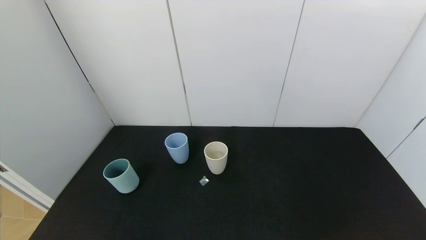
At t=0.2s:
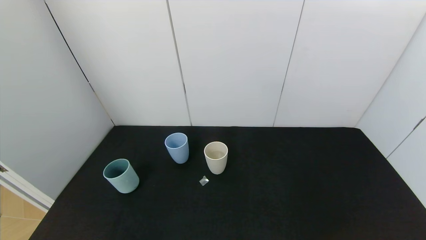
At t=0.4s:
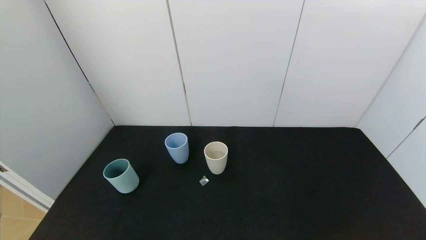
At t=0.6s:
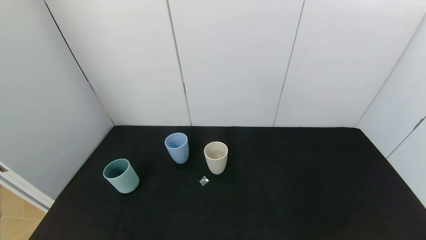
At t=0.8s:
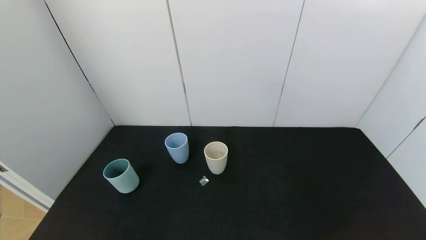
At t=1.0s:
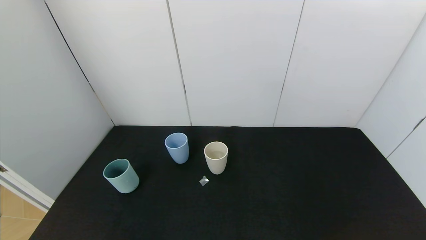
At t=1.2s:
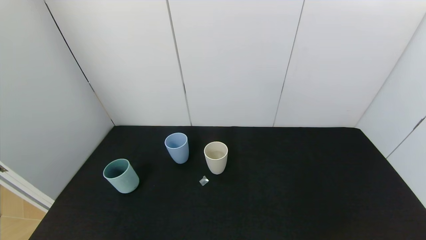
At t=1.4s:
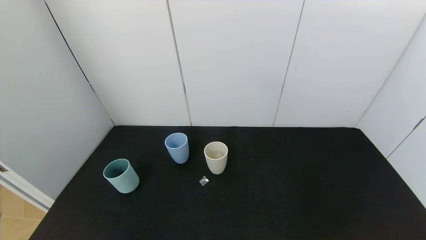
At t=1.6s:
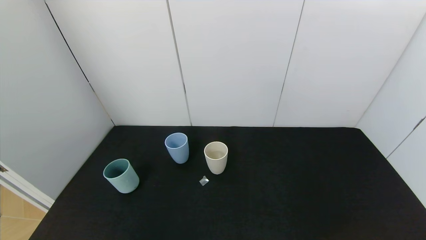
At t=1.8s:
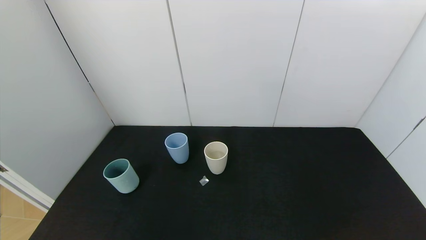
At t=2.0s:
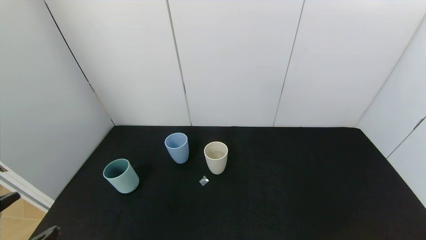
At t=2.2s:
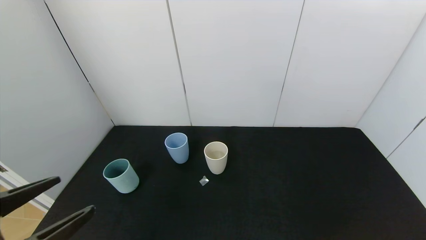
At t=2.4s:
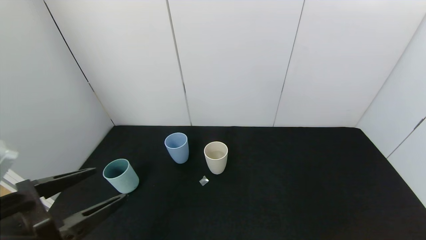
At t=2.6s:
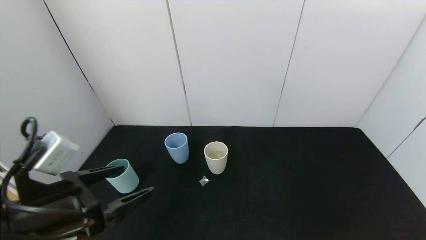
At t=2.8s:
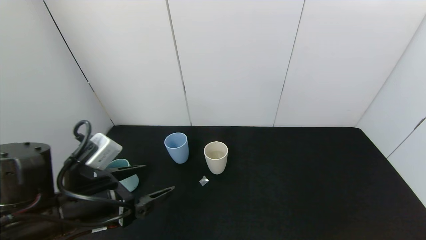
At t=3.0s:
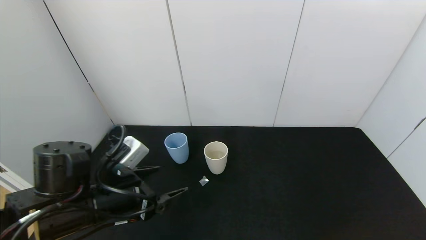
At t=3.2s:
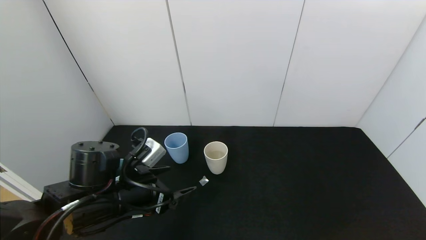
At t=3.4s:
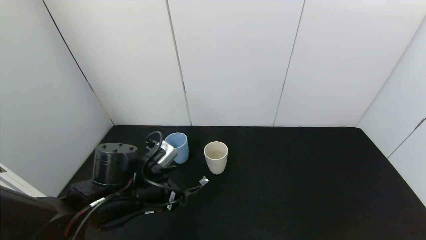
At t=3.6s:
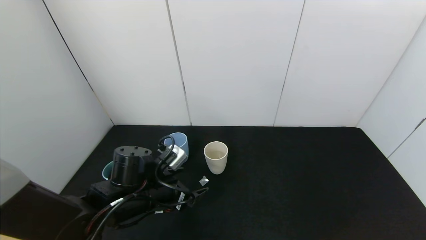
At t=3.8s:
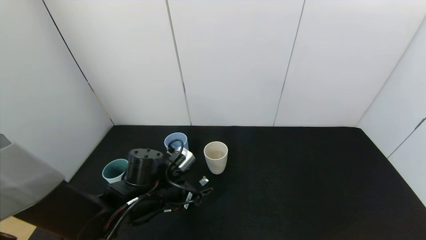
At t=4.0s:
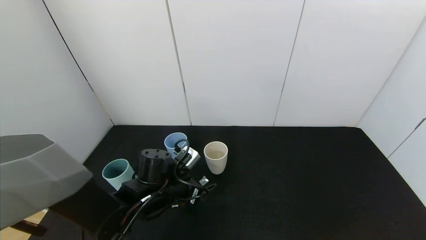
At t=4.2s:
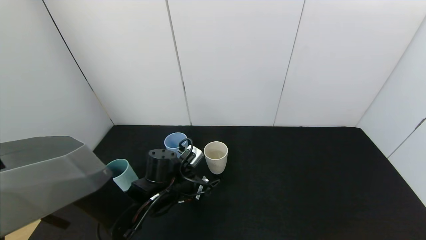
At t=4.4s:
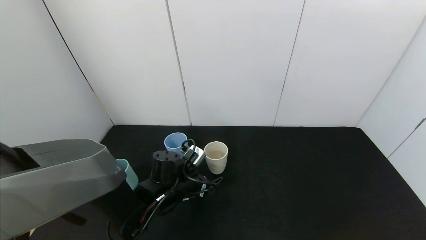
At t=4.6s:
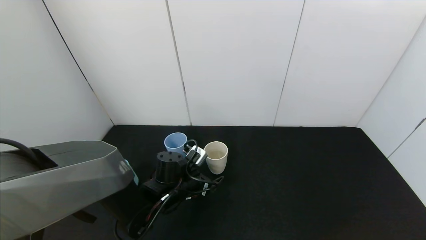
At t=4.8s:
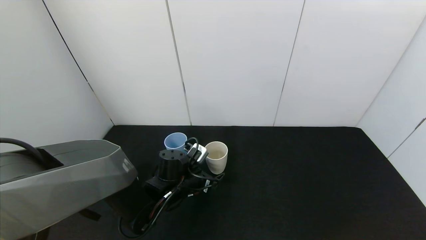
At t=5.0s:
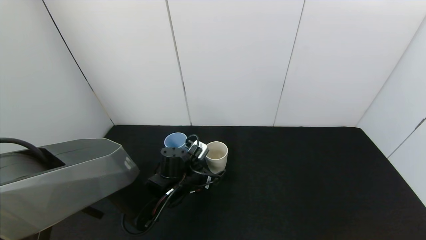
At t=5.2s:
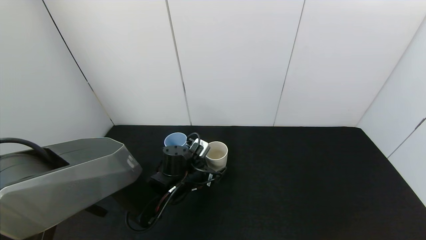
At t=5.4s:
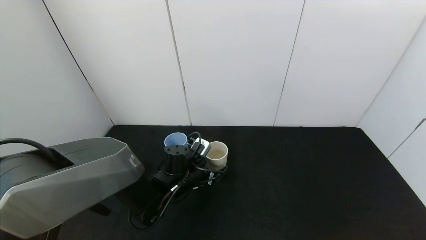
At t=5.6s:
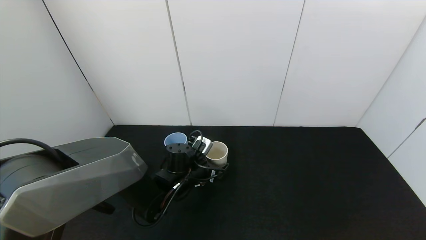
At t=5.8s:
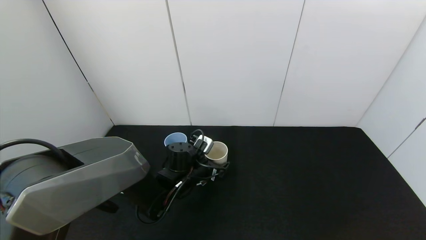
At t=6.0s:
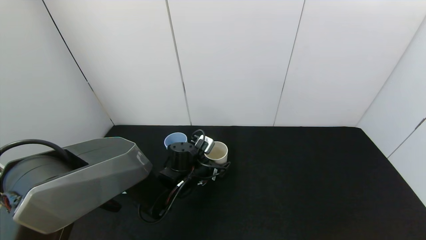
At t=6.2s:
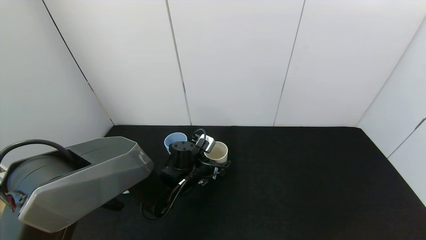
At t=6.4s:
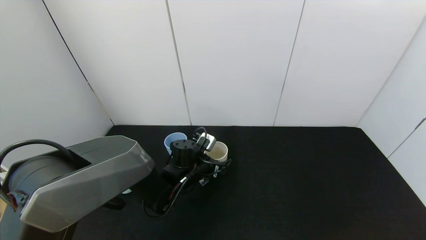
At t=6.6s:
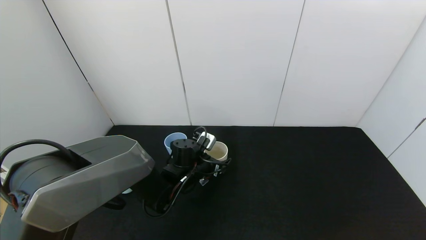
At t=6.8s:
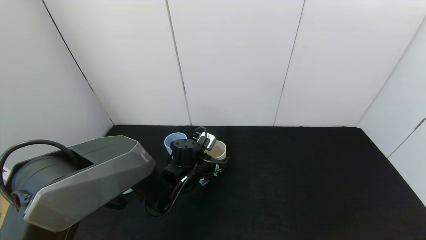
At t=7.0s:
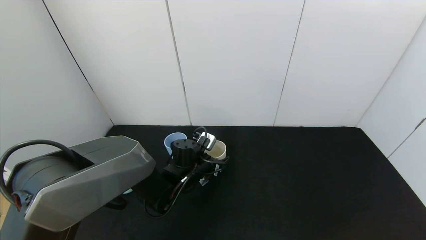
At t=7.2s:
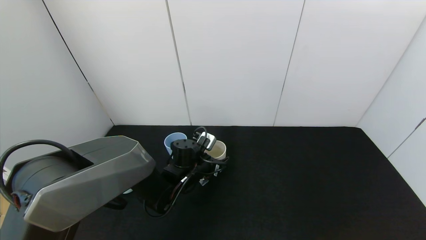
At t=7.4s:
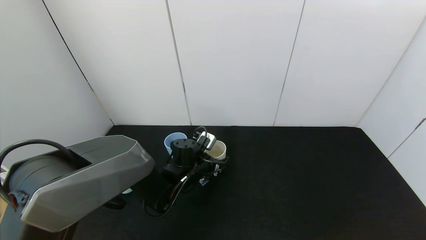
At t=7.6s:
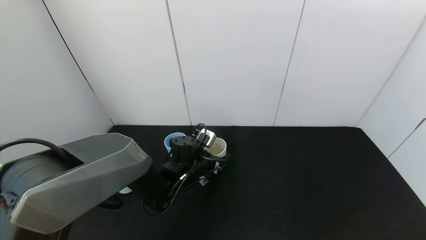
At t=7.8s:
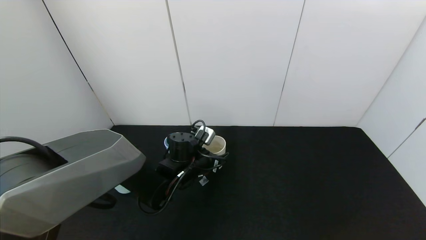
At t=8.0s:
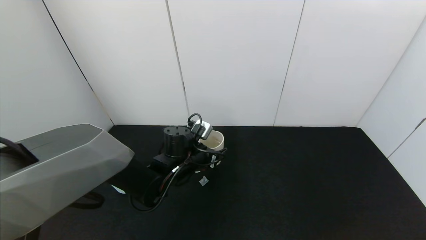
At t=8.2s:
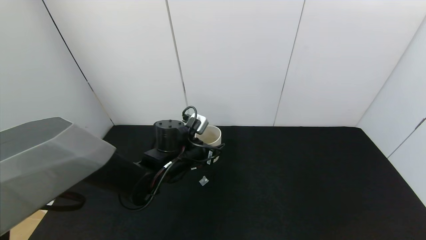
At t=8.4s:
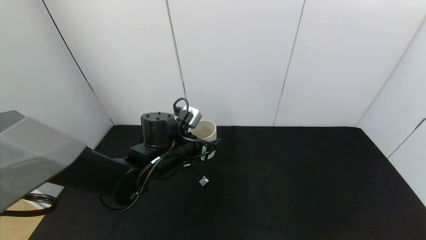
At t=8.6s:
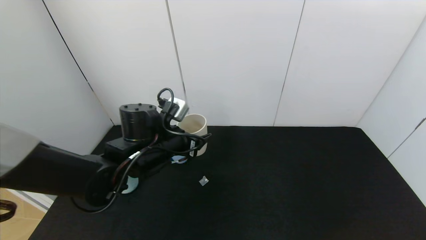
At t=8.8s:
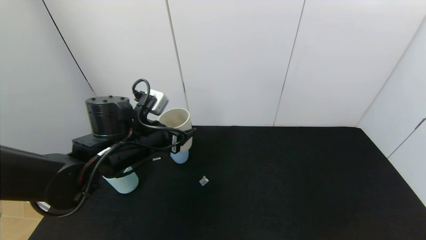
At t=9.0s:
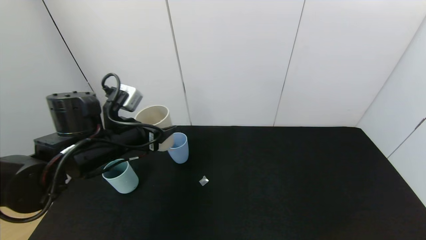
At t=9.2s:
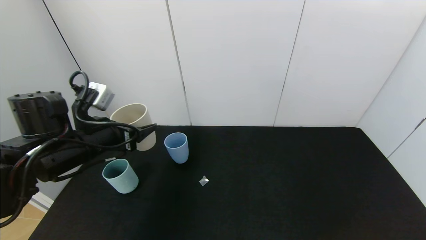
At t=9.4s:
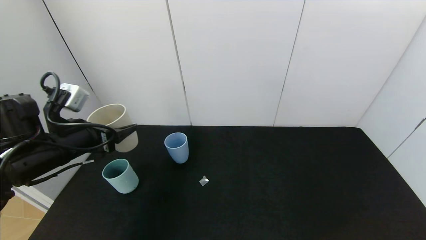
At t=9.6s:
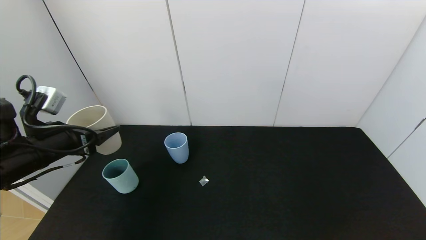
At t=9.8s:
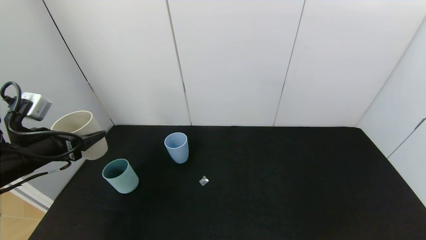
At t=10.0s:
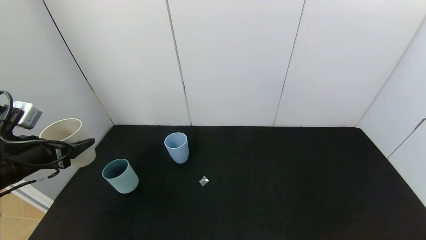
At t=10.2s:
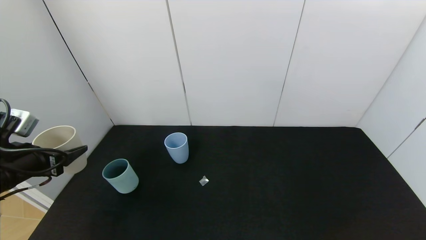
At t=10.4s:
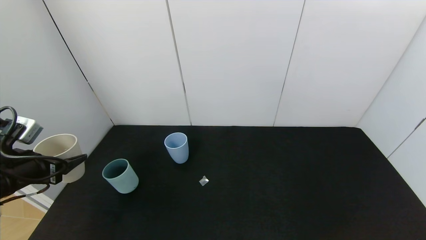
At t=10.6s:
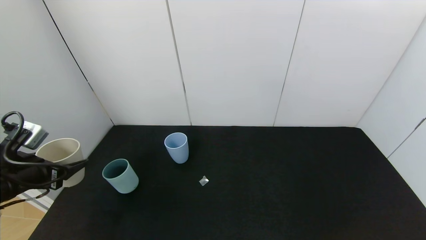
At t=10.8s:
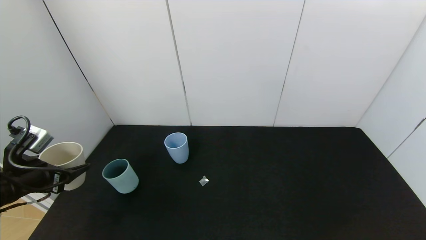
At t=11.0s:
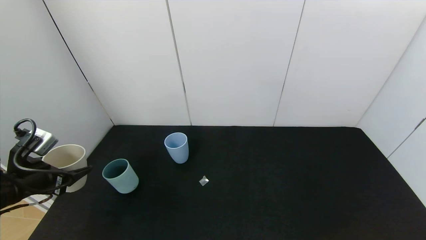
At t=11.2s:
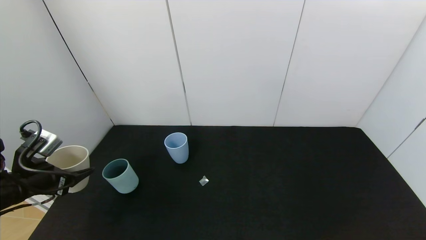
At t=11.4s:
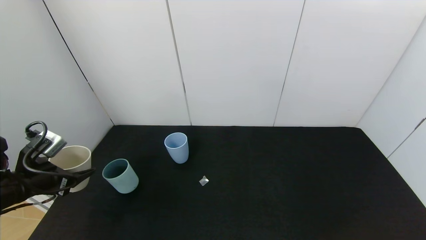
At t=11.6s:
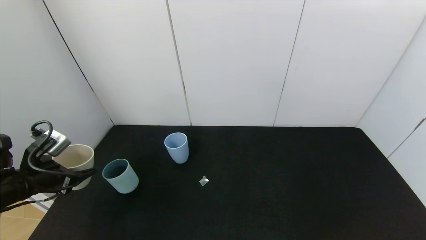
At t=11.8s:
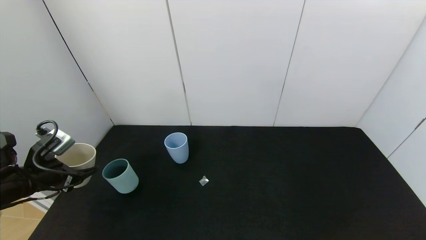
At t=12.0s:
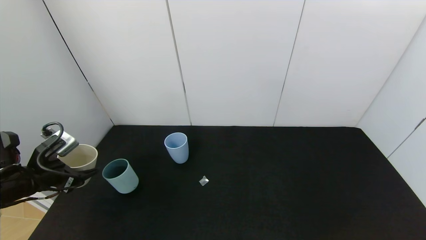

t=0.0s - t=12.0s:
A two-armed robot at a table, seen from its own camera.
Task of the whole recording: use the gripper to pour the water into the other two cups on black table.
Step, t=0.0s - t=6.8s: Grasp the white cup with the left gripper.
t=1.6s - t=3.0s: The left gripper goes approximately 25 cm forward.
t=3.0s - t=4.4s: The left gripper goes roughly 15 cm forward, downward and to the right.
t=4.4s - t=6.0s: The left gripper changes place by about 5 cm.
t=6.0s - t=7.6s: The left gripper closes.
t=7.6s - t=9.0s: The left gripper travels upward, to the left and backward by about 20 cm.
t=9.0s - t=10.4s: The left gripper shifts some 15 cm to the left.

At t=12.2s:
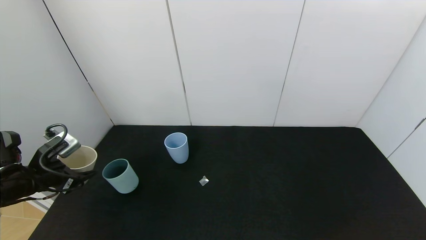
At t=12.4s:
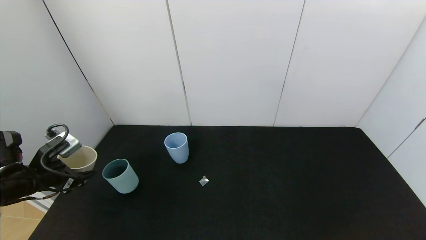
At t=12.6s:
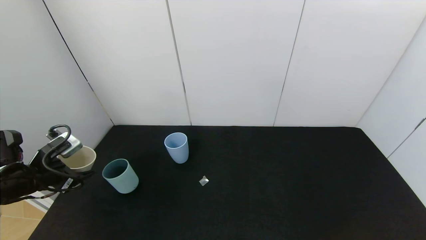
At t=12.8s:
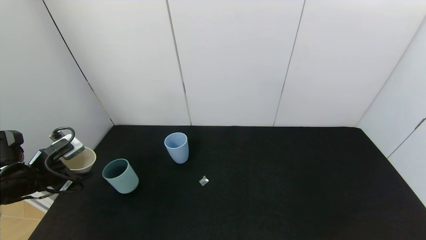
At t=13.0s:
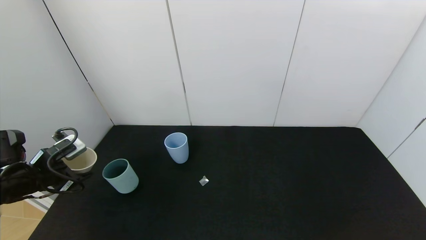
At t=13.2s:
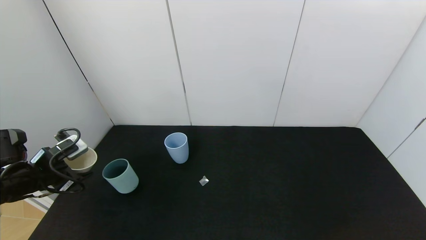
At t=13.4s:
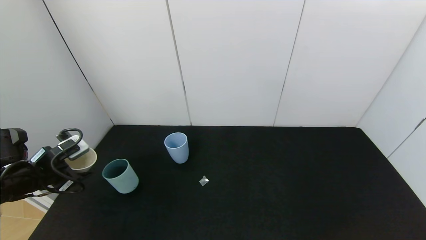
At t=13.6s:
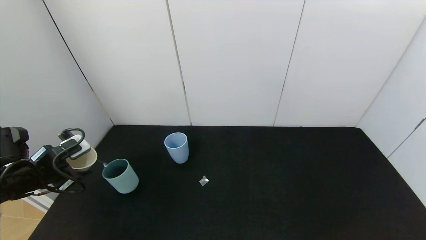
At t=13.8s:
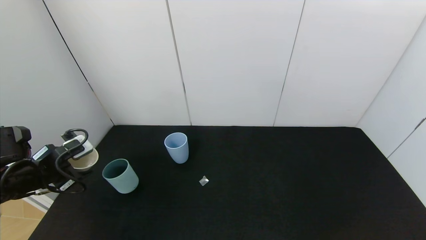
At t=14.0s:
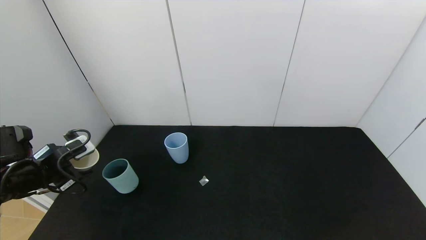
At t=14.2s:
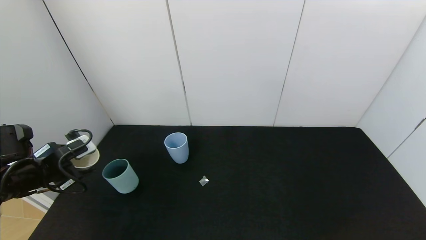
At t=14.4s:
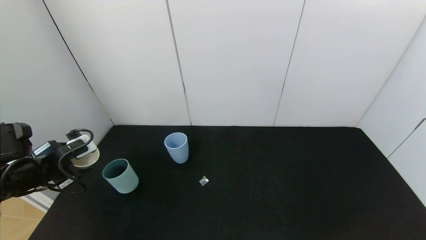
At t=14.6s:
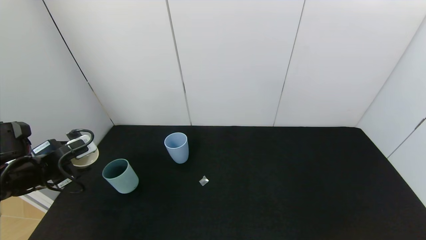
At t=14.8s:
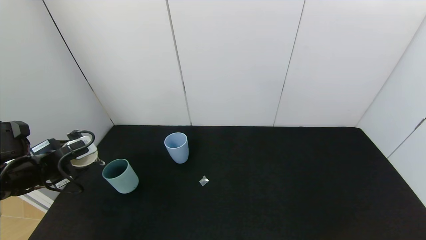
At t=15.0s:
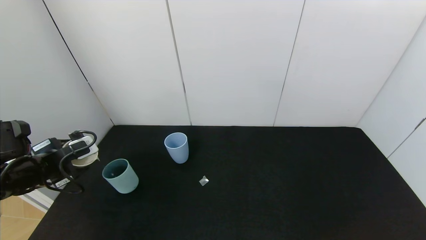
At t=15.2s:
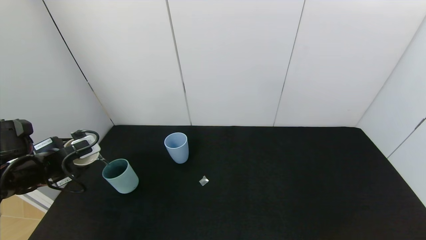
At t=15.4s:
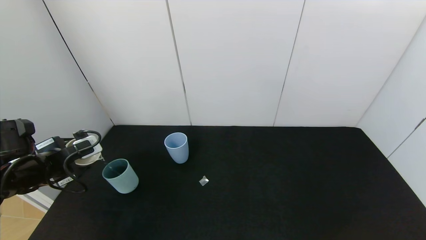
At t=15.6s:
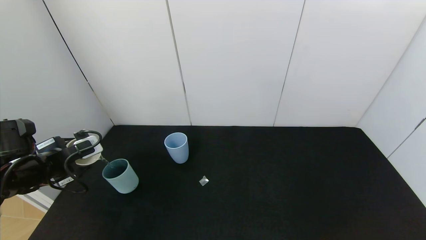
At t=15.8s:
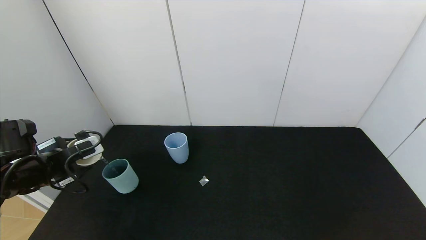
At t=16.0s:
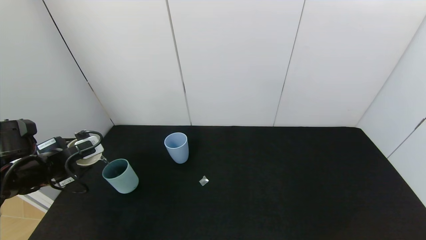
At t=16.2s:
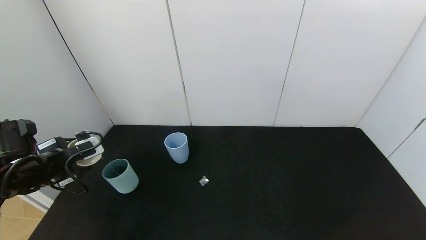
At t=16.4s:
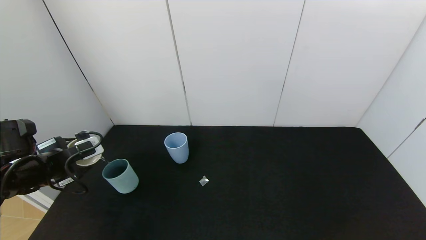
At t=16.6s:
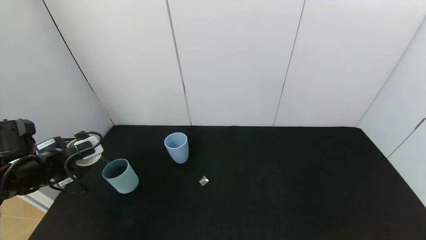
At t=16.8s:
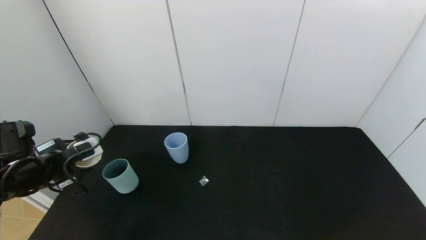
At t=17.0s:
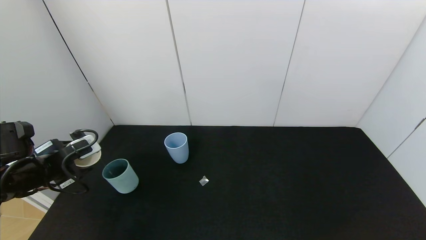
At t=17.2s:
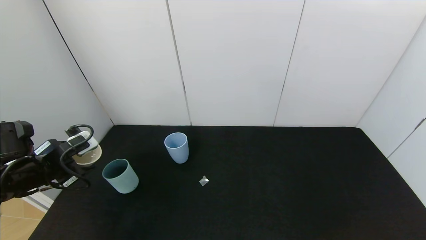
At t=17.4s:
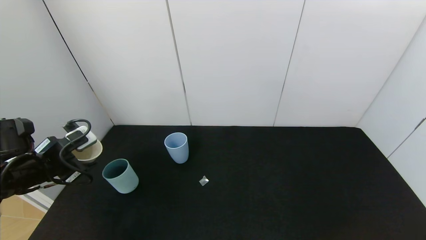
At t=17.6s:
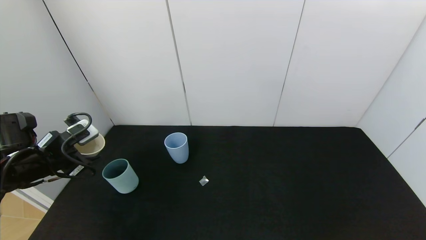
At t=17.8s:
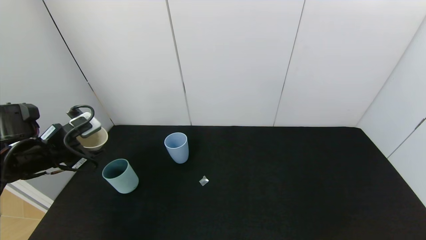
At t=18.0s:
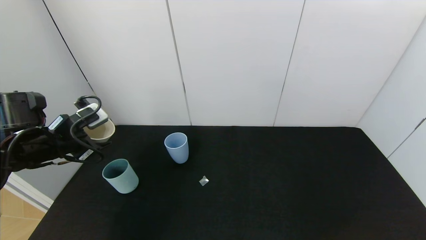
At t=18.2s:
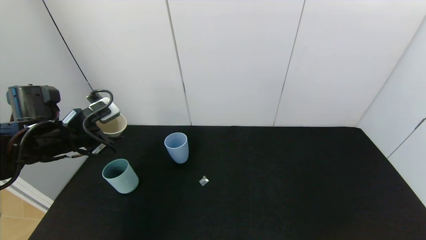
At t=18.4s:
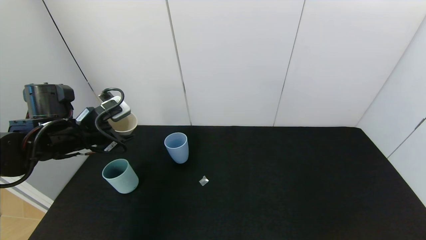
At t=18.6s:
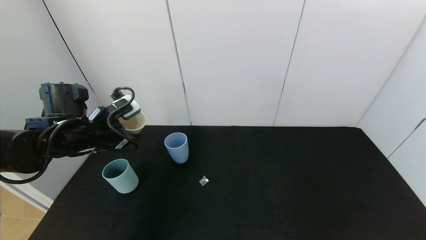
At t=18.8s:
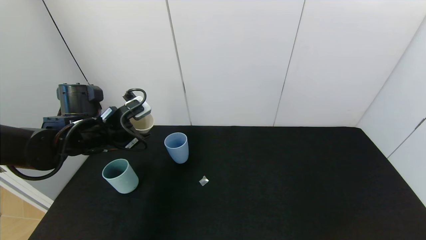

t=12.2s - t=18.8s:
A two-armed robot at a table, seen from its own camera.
Task of the whole recording: use the gripper to pour the water into the other two cups on black table.
Step, t=12.2s - t=17.4s: Pour water from white cup to green cup with the left gripper.
t=12.2s - t=13.8s: The grippers move only a little.
t=13.8s - t=17.2s: The grippers move only a little.
t=17.2s - t=18.8s: The left gripper goes about 15 cm to the right and forward.
